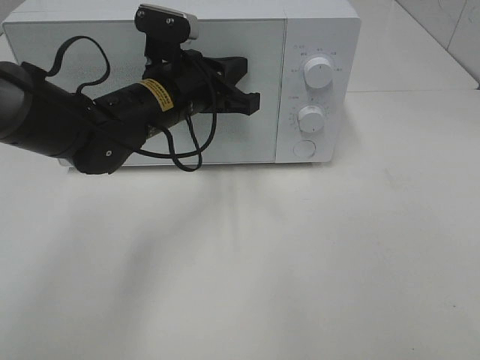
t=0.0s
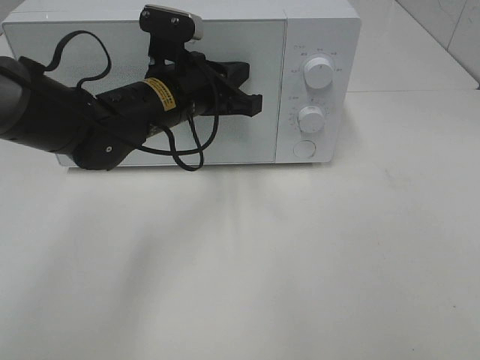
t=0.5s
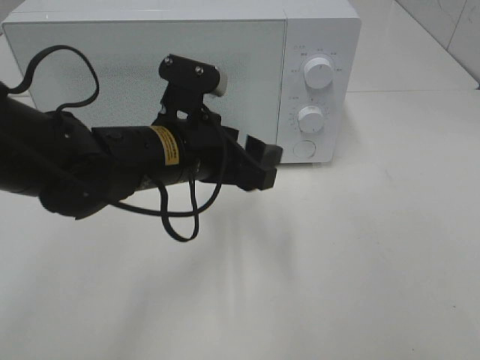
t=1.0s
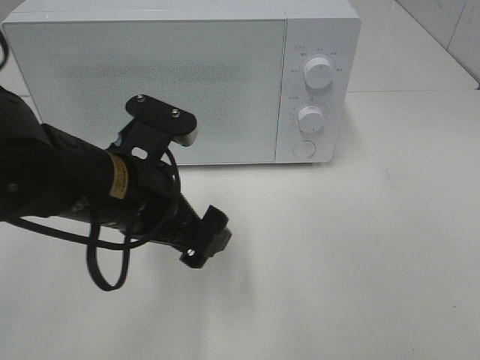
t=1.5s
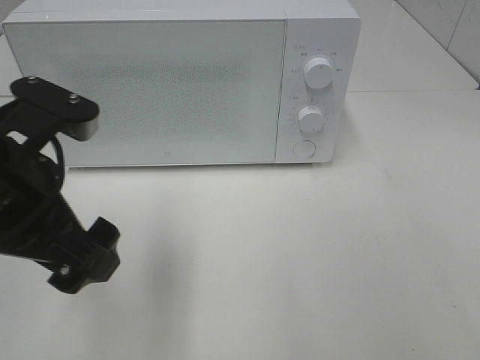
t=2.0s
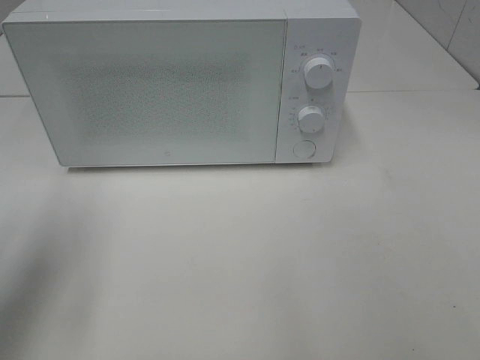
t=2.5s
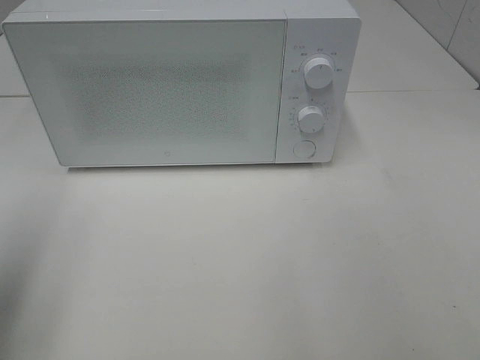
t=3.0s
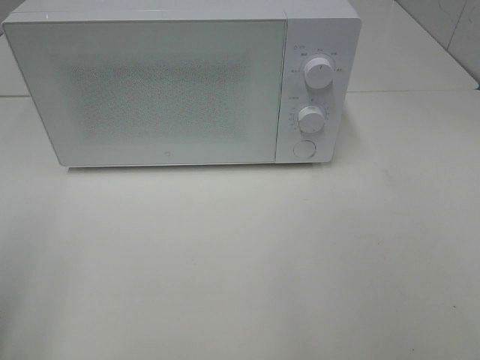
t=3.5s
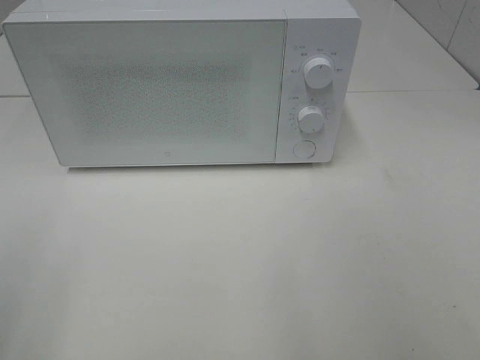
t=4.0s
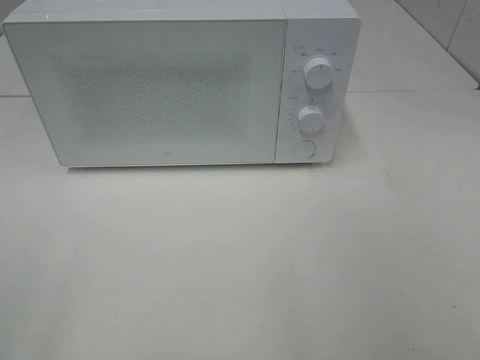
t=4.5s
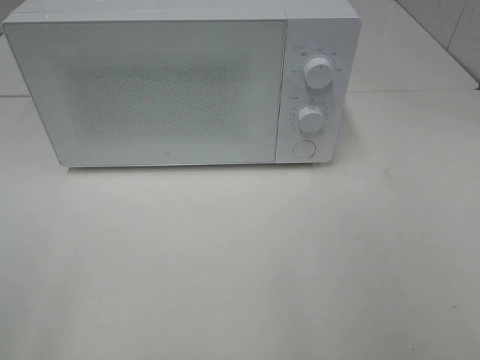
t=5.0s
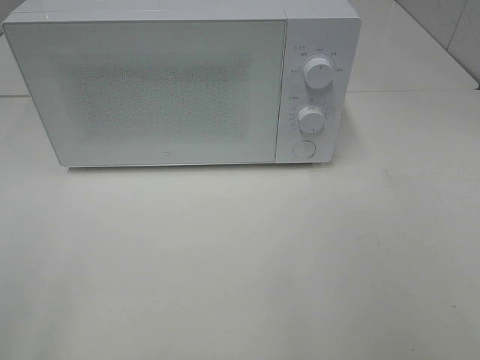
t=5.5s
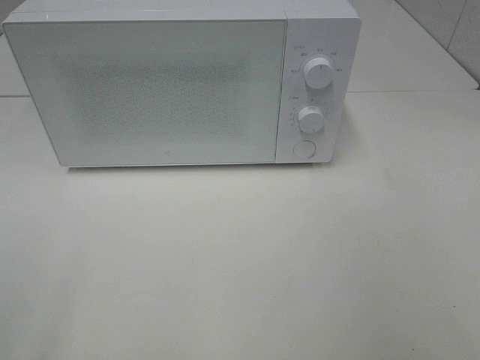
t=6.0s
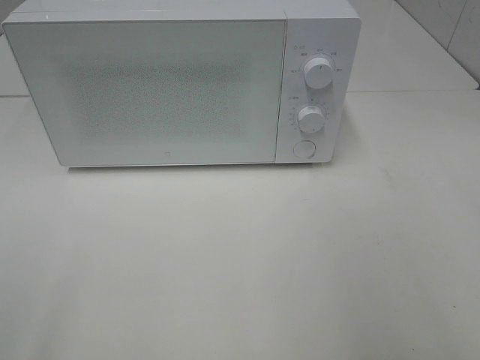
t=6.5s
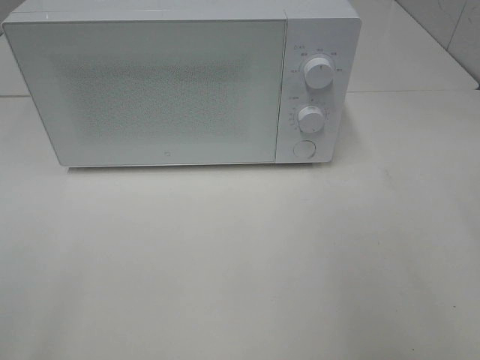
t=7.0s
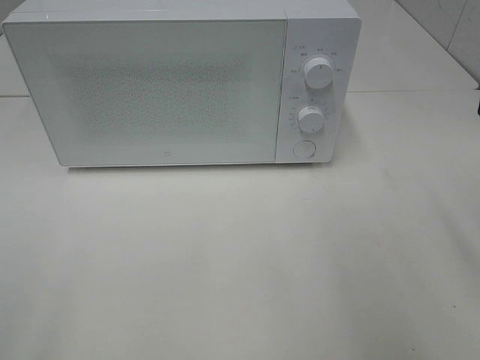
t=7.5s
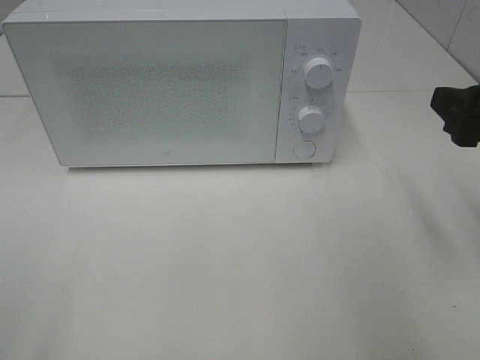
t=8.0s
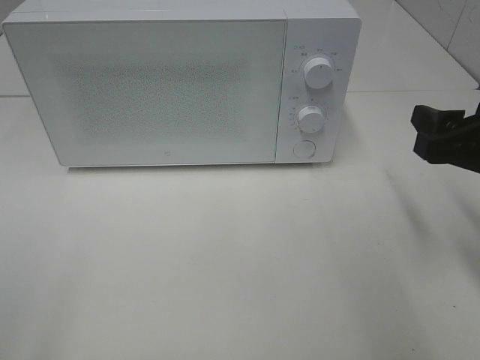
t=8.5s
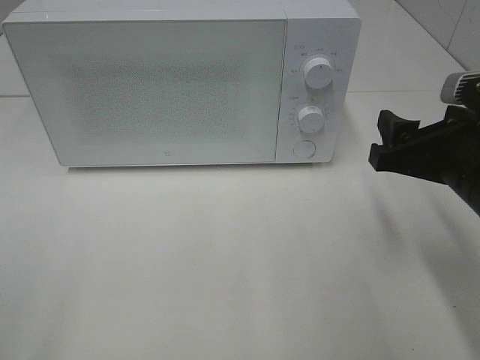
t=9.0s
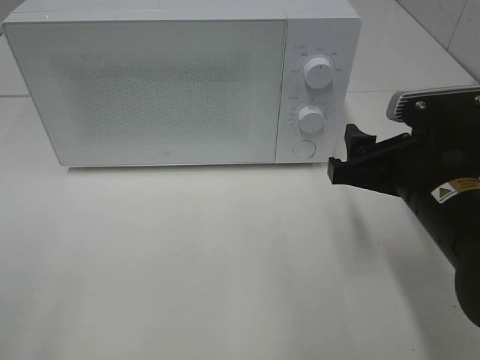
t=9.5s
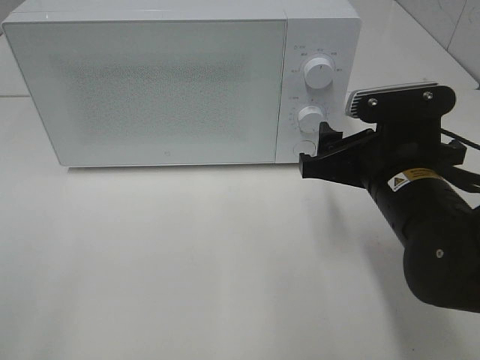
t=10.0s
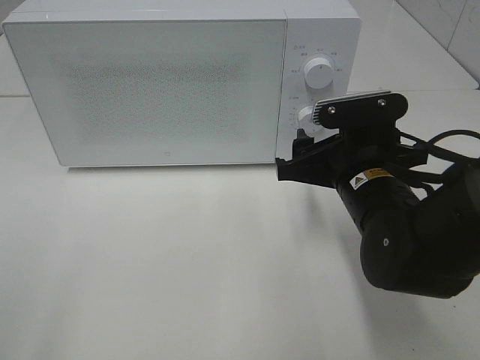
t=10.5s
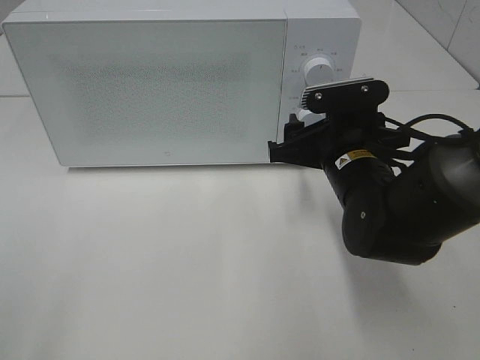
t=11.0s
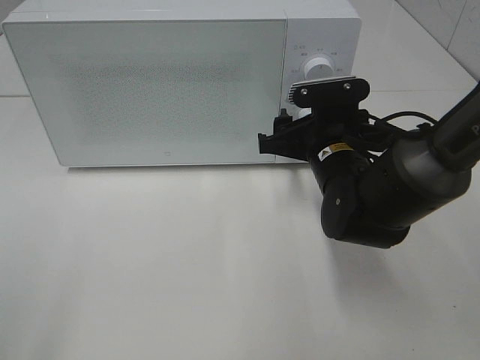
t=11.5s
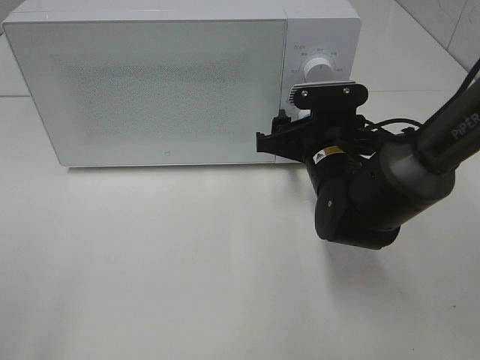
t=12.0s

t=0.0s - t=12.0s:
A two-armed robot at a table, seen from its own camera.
Task of the whole recording: Heat the burger.
t=0.0s - t=2.0s: The left gripper shifts roughly 20 cm backward and to the left, and opens.
t=2.0s - t=4.0s: The left gripper shifts some 20 cm to the left and backward.
t=6.0s - t=8.0s: The right gripper moves forward and downward, roughly 20 cm.
t=8.0s - t=10.0s: The right gripper travels to the left and downward by about 15 cm.
t=10.0s - t=12.0s: The right gripper heads forward, covering approximately 10 cm.

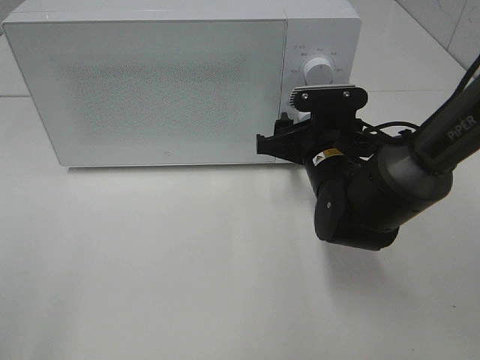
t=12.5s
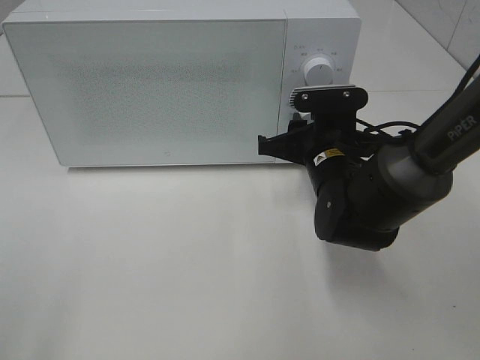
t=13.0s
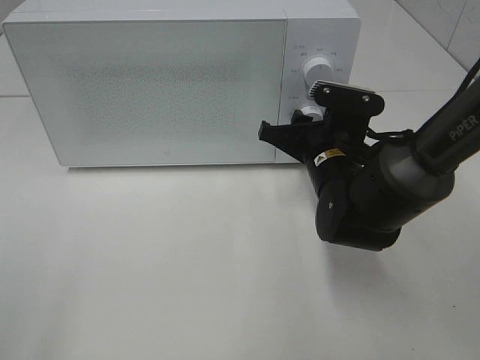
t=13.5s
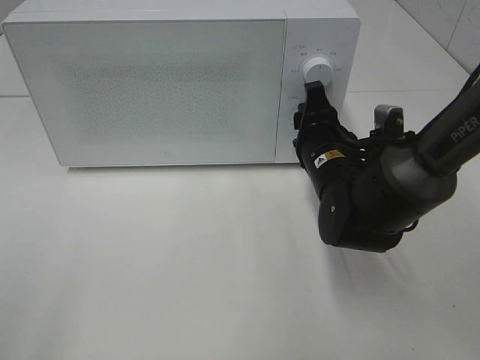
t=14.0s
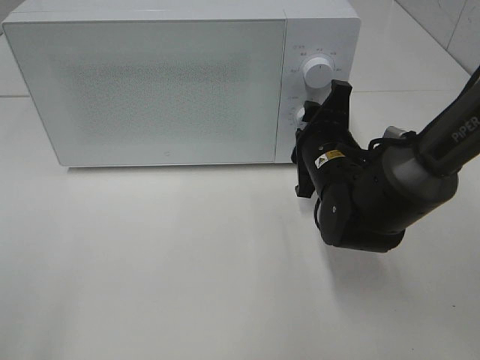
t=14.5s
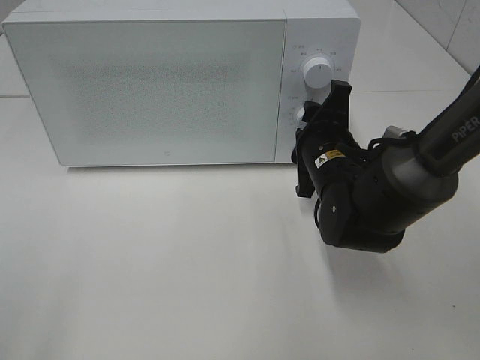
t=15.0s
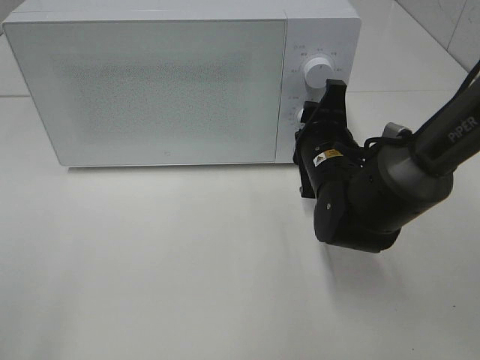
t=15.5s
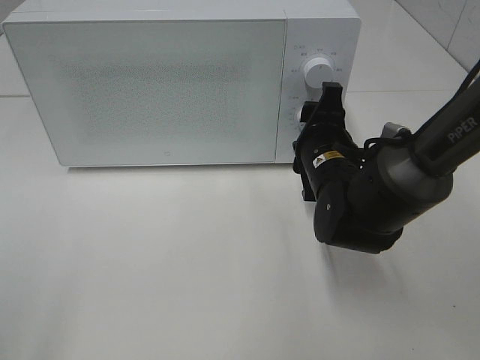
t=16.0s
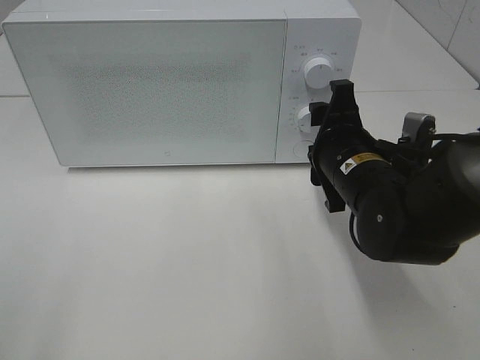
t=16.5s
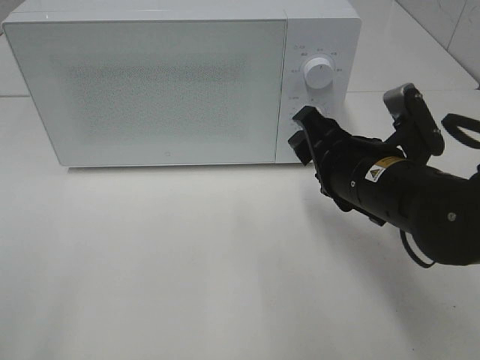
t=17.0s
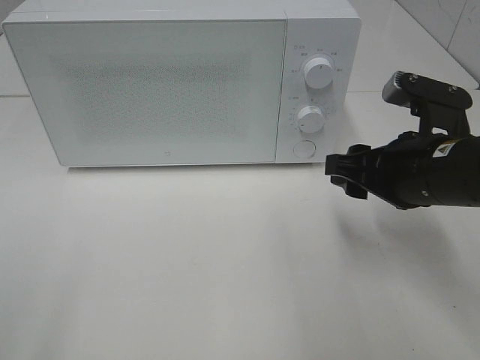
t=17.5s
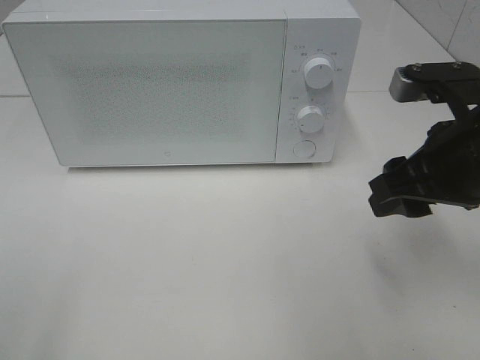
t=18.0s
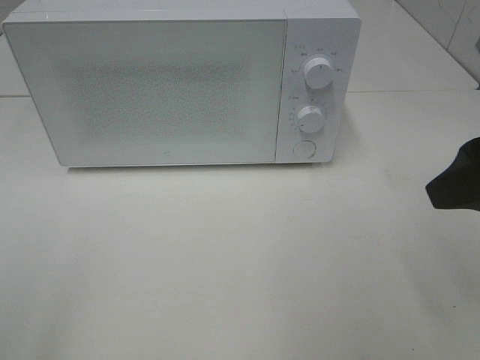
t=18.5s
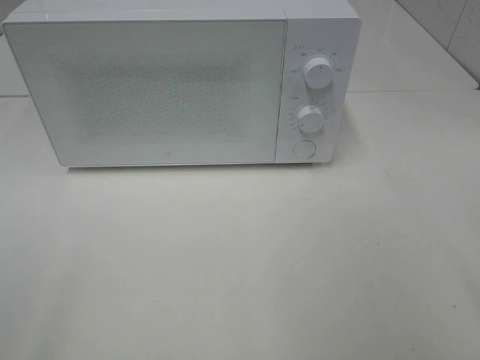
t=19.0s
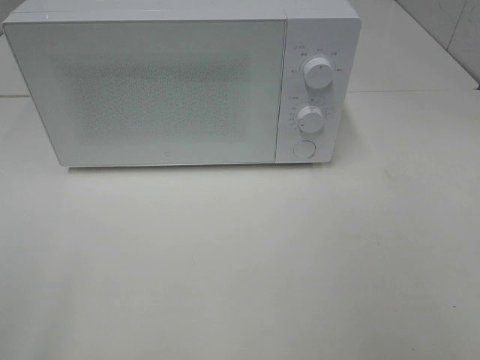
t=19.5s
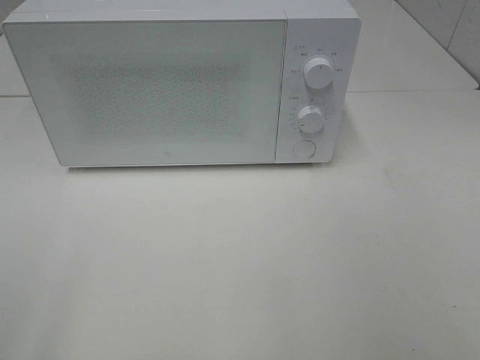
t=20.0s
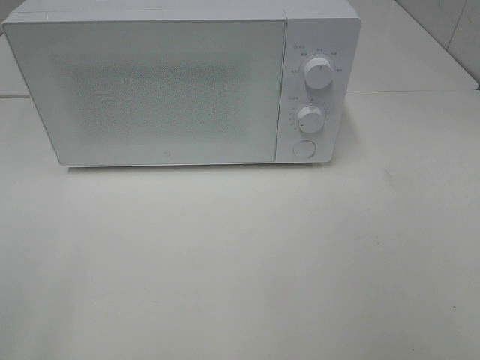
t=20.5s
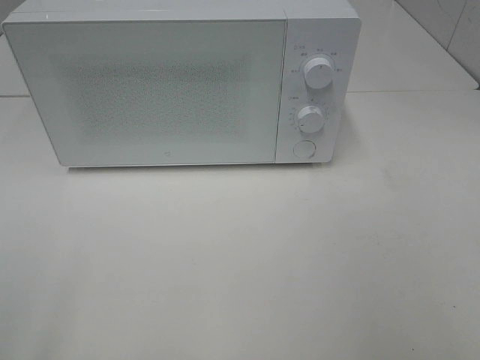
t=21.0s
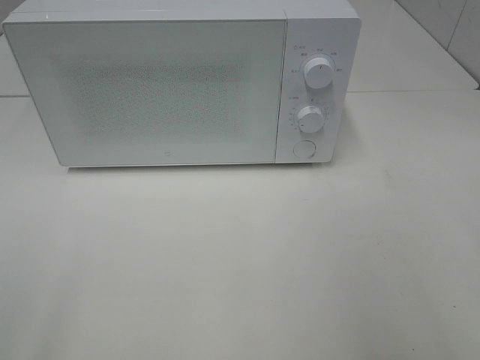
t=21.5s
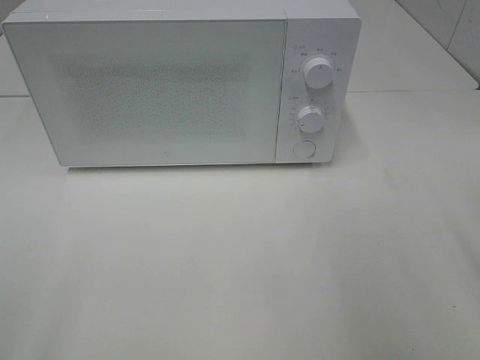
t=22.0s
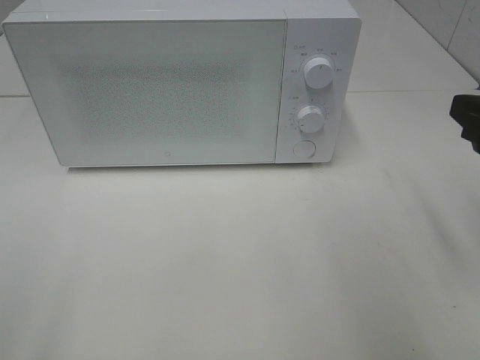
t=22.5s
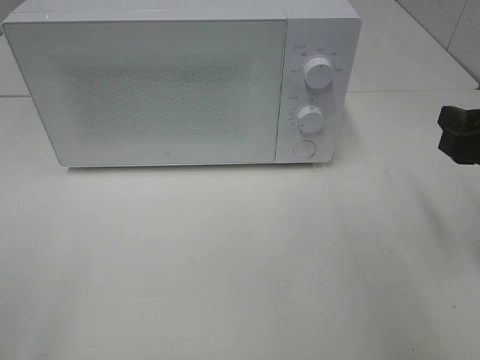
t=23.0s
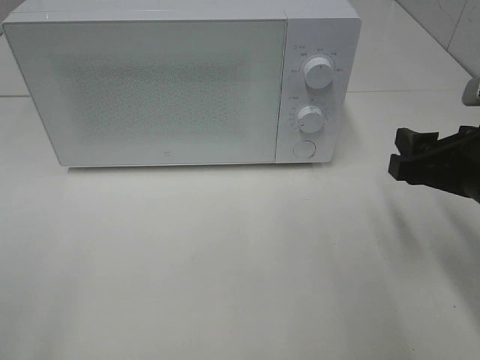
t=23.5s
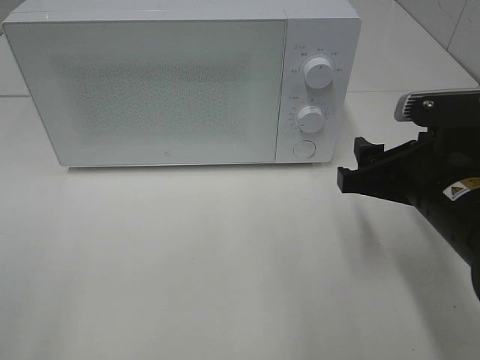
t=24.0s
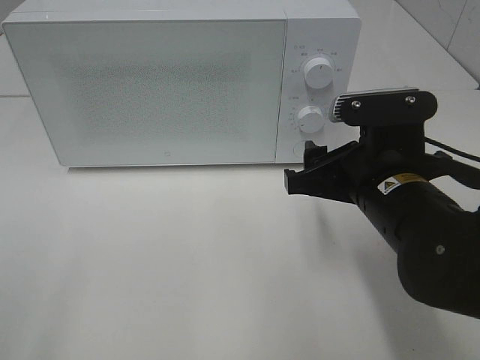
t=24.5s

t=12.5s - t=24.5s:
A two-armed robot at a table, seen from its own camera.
Task of the whole recording: Heat the burger.
Step, t=12.5s - t=16.0s: Right hand: twist timer button.
t=14.5s - t=16.5s: There are only small adjustments of the grippers.
t=16.5s - t=18.5s: The right gripper moves upward, backward and to the right, some 20 cm.
t=18.5s - t=20.5s: The right gripper moves backward and to the right, some 20 cm.
t=20.5s - t=22.5s: The right gripper travels forward by about 20 cm.
t=22.5s - t=24.5s: The right gripper travels to the left and downward by approximately 15 cm.

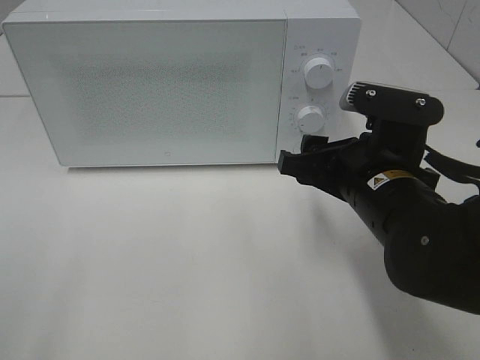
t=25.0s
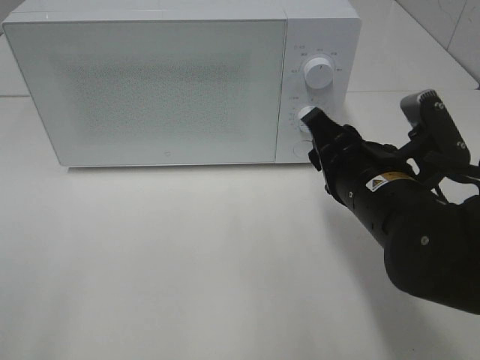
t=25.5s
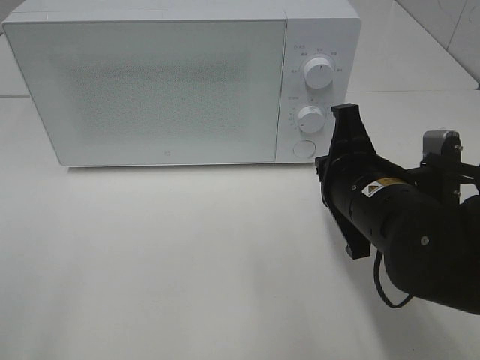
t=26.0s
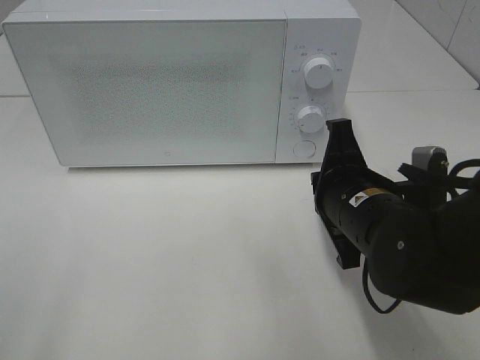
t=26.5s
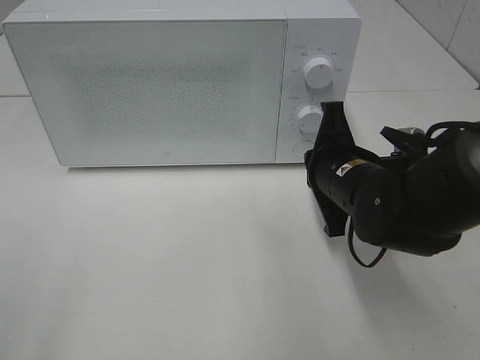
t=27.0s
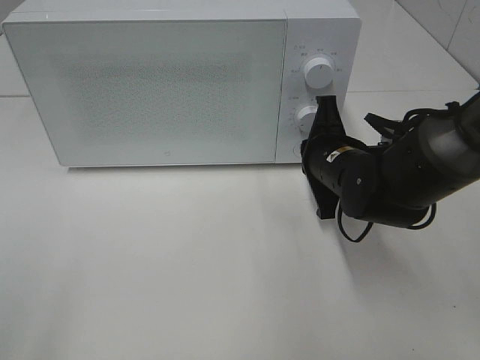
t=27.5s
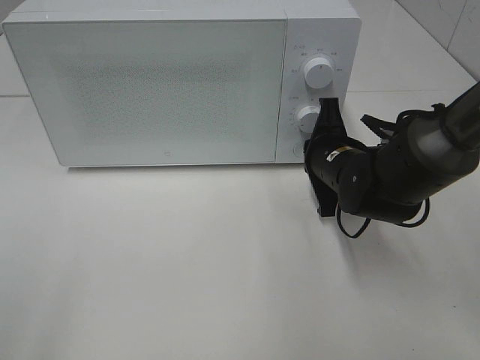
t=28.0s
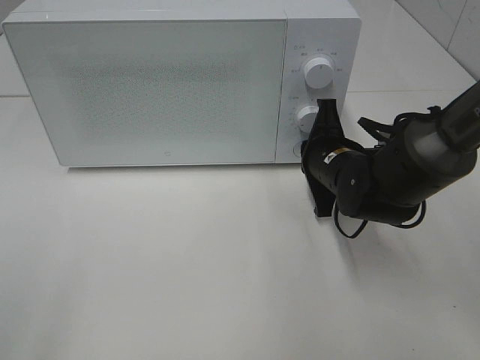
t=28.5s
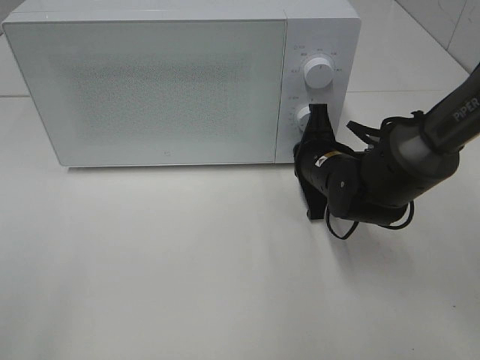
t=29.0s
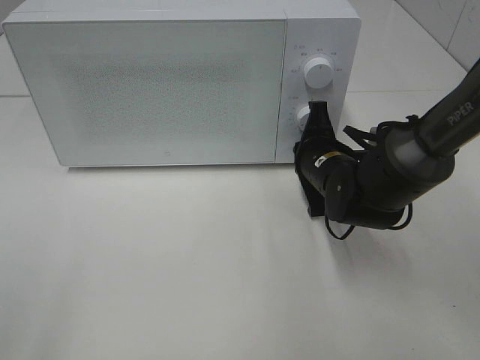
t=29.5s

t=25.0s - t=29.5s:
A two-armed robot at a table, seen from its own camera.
Task of the whole recording: Heat the burger.
t=25.0s - t=27.0s: The right gripper travels forward by some 5 cm, and closes.
t=27.0s - t=29.5s: The right gripper travels forward by about 5 cm.
